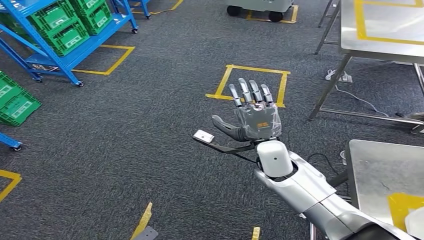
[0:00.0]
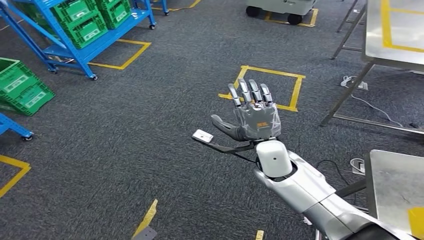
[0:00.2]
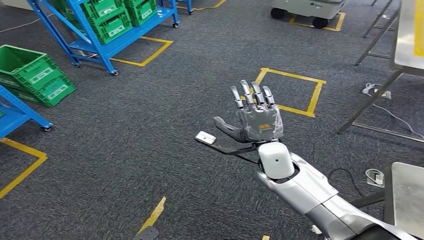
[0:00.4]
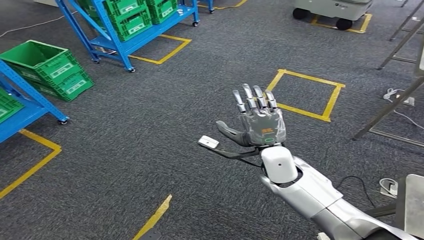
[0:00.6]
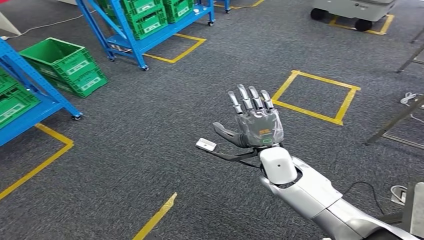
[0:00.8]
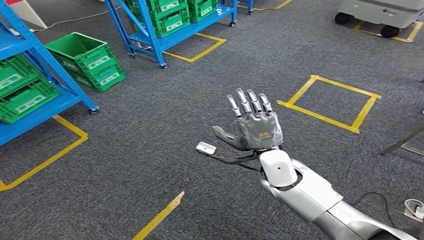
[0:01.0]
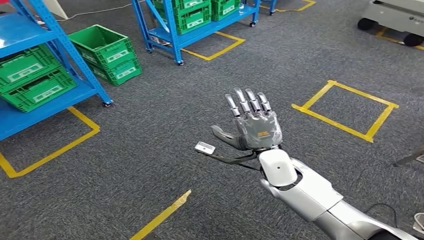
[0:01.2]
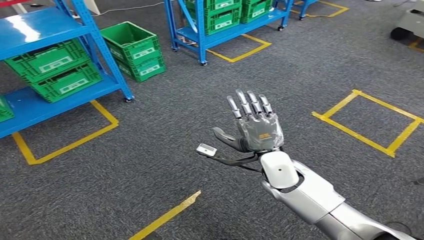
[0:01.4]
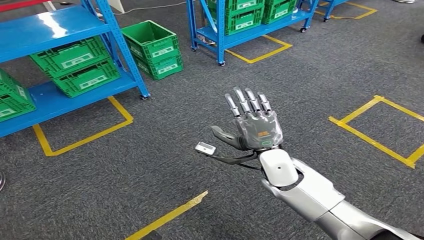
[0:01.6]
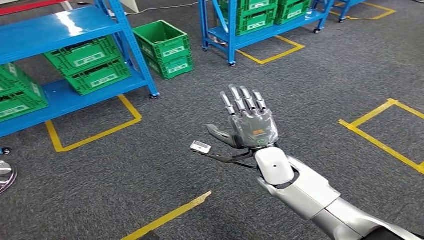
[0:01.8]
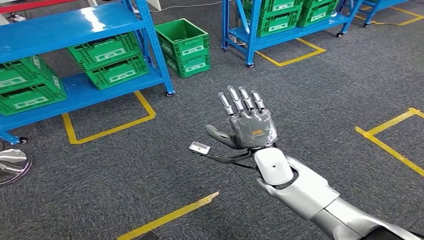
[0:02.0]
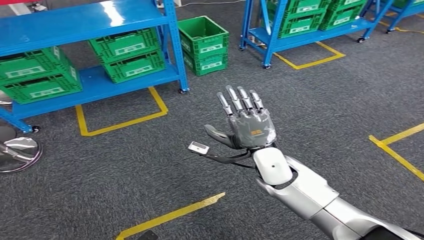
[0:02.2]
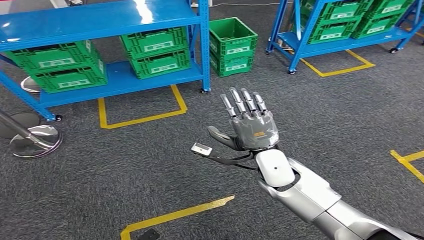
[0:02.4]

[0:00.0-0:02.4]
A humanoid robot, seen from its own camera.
Step, 0:00.0 to 0:02.4: Return to the initial position at the workbench.
